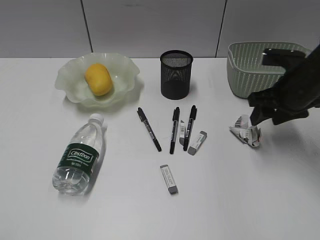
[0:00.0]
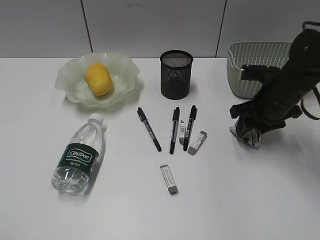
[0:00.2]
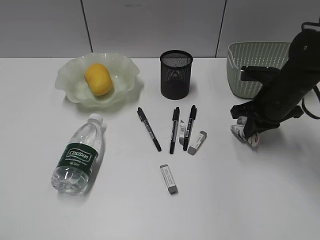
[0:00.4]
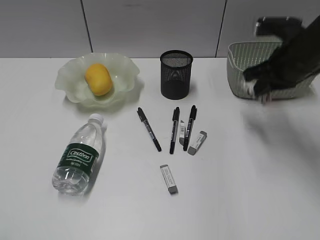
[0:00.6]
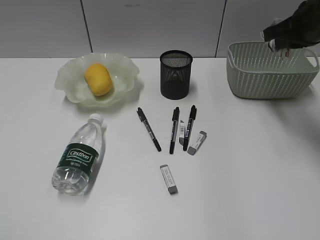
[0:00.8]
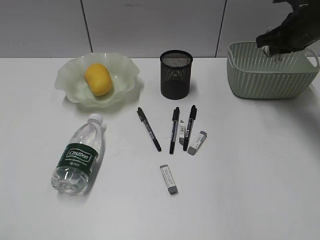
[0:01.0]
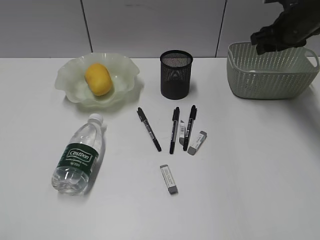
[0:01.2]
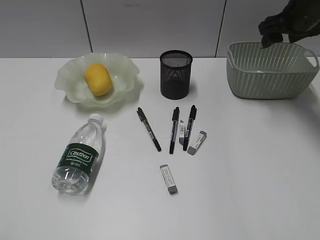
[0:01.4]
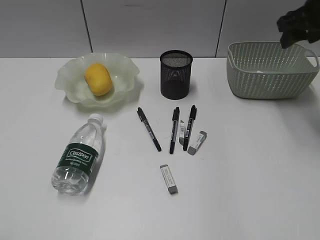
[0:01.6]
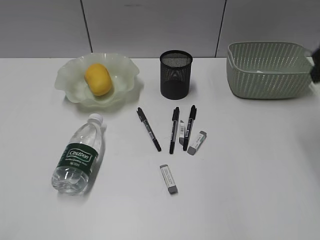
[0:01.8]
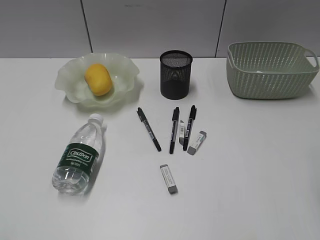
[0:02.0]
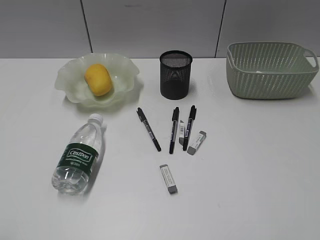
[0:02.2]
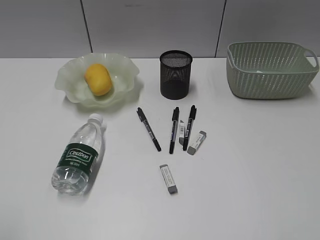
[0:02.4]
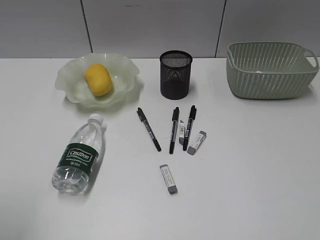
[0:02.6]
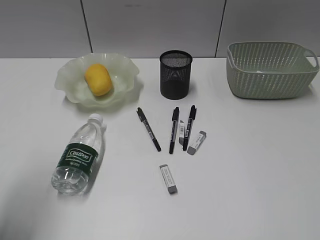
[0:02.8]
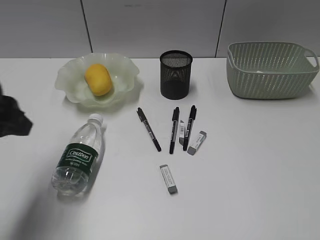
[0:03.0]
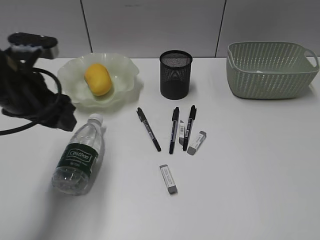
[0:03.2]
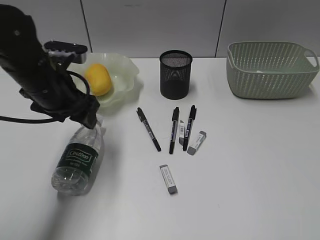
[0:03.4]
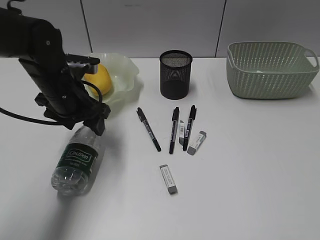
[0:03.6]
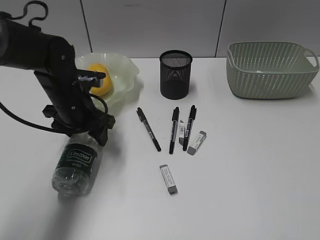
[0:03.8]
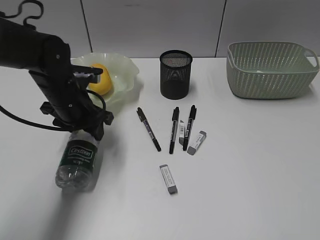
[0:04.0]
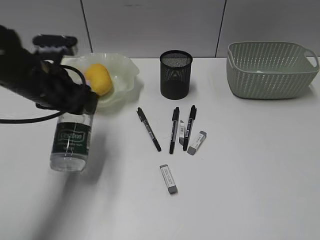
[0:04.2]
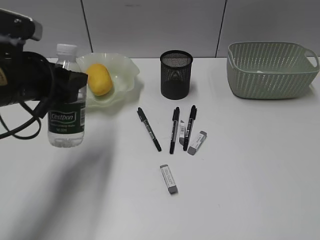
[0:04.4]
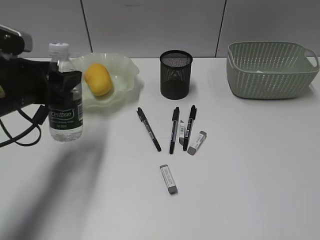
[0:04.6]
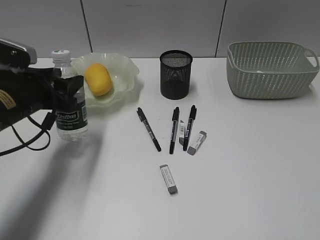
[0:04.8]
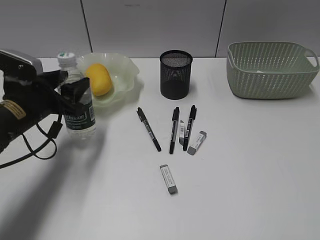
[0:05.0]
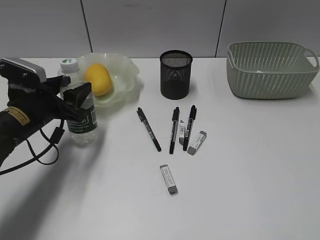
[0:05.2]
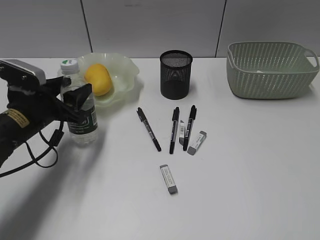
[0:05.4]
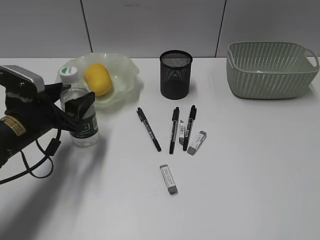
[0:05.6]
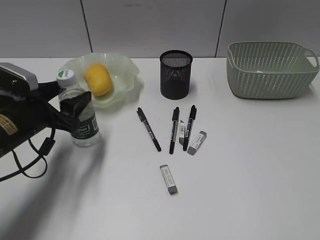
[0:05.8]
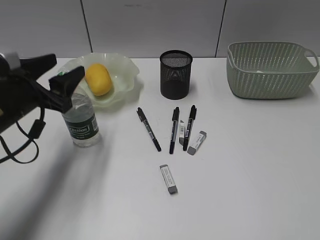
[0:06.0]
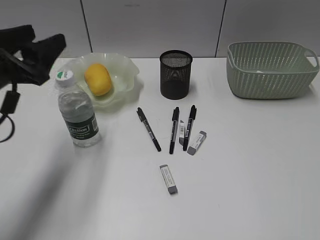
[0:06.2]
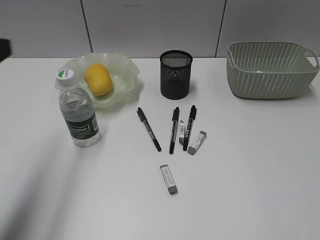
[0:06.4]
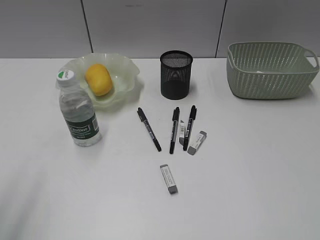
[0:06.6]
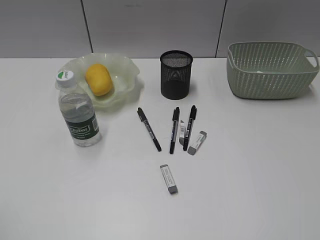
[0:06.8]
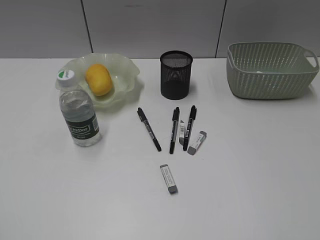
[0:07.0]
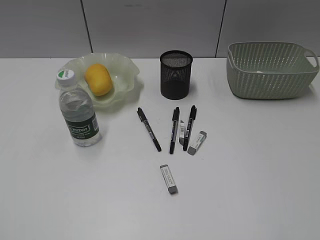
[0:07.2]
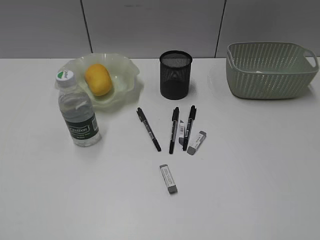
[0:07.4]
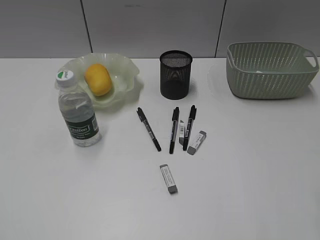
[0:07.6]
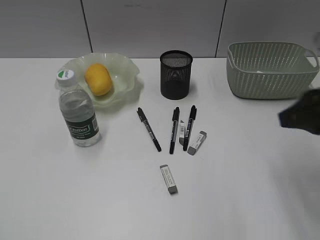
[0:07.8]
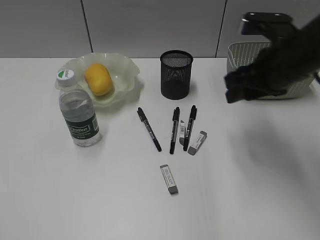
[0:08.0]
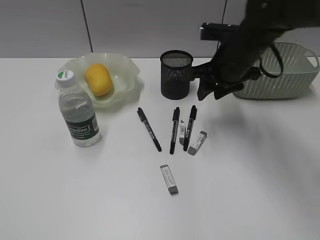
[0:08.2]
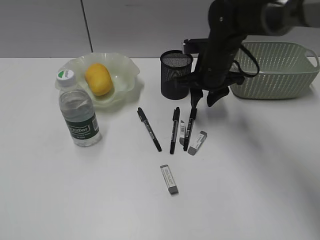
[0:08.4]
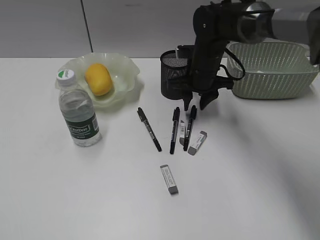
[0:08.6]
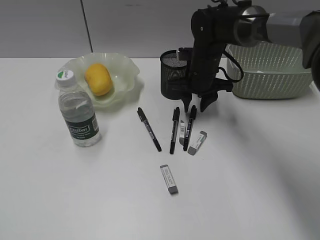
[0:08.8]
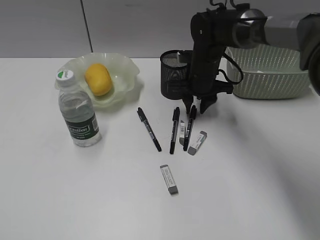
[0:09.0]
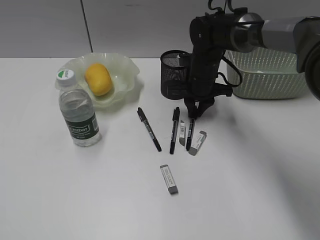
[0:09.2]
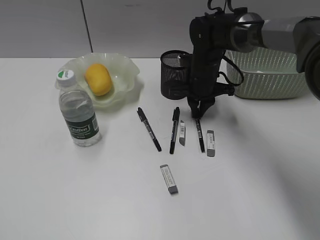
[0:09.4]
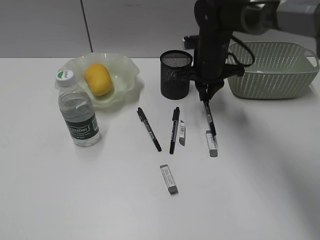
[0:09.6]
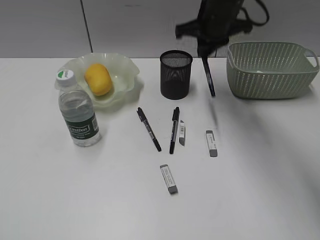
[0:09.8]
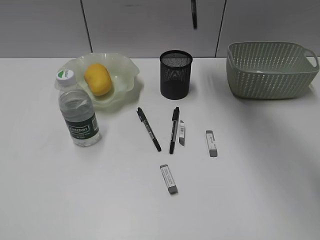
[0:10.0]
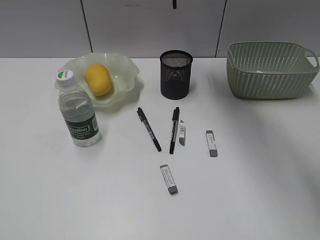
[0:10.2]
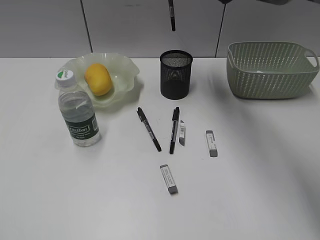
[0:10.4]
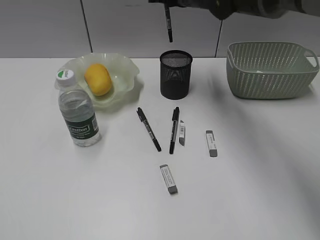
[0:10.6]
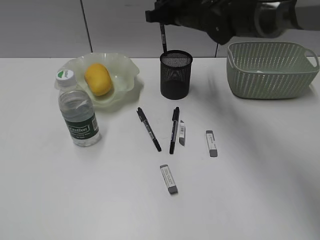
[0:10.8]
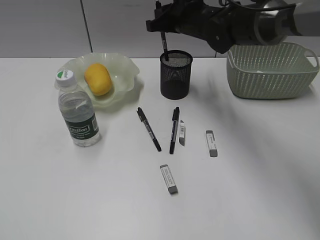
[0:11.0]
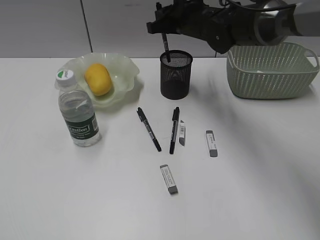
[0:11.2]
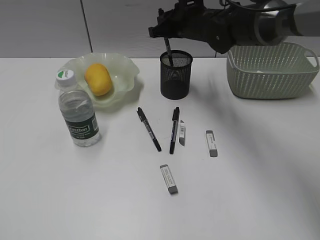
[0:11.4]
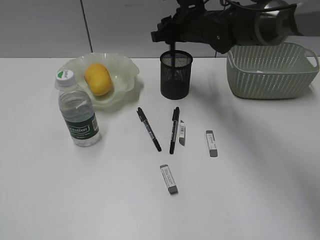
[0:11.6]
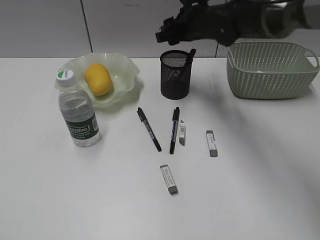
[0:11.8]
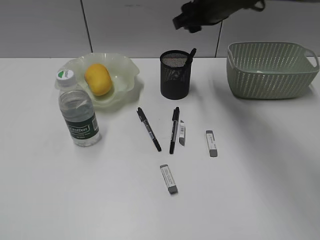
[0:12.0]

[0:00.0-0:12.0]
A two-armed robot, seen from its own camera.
Step, 0:00.6 to 0:01.2: Place the waste paper in the basket with right gripper.
Step, 0:01.4 to 0:03.8: Grasp the bottle with left gripper.
Step, 0:04.0 to 0:06.0: Stand the bottle with left gripper.
Step, 0:06.2 to 0:09.2: Grasp the black pen with right gripper.
Step, 0:09.4 to 0:11.6: Place the black pen in pen holder with right gripper.
0:00.0 to 0:01.6: The right gripper moves up and down over about 15 cm, changing direction 2 times, and closes and opens again.
0:01.6 to 0:03.0: The right gripper heads backward, covering some 40 cm; the left gripper goes roughly 25 cm forward.
0:06.0 to 0:07.6: The left gripper moves backward, to the left and upward, about 30 cm, and closes.
0:07.6 to 0:09.0: The right gripper goes roughly 40 cm forward, to the left and downward.
0:09.0 to 0:10.4: The right gripper heads upward, covering roughly 15 cm, and closes its fingers.
0:10.4 to 0:12.0: The right gripper heads backward, covering about 5 cm, moves about 10 cm downward and comes back, and opens up.

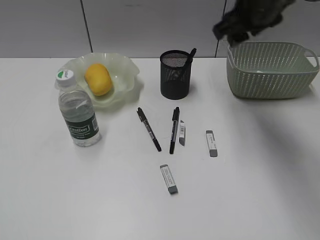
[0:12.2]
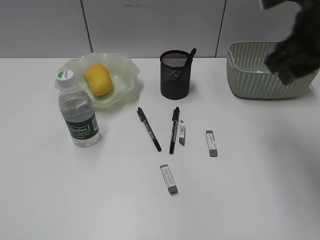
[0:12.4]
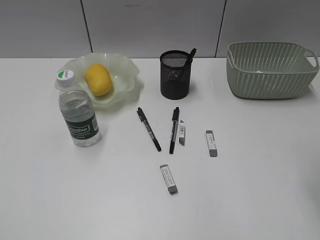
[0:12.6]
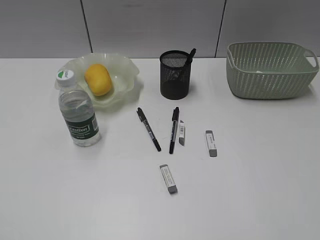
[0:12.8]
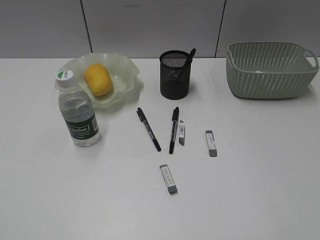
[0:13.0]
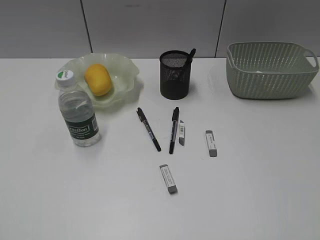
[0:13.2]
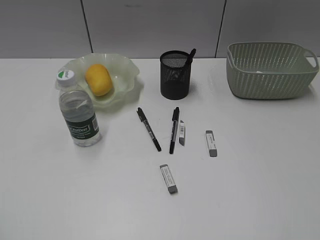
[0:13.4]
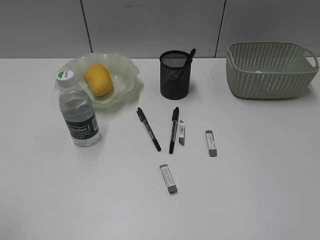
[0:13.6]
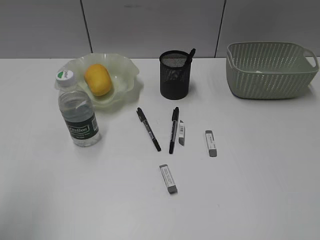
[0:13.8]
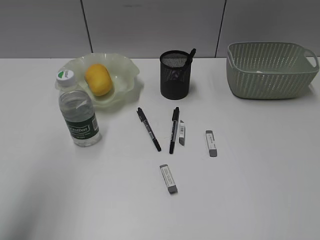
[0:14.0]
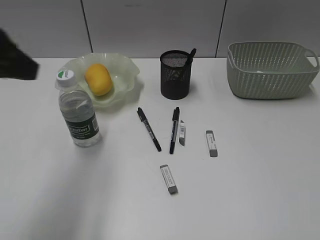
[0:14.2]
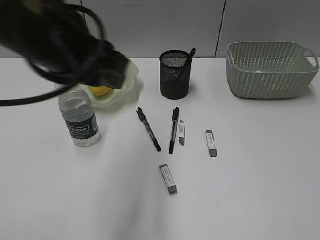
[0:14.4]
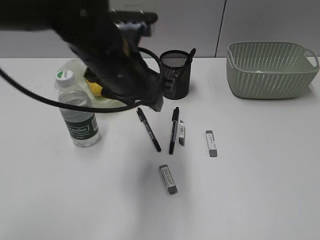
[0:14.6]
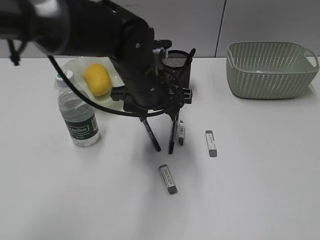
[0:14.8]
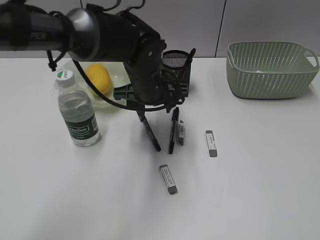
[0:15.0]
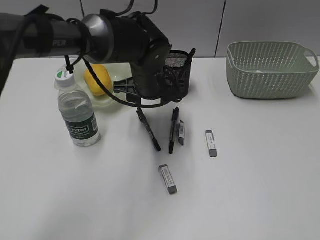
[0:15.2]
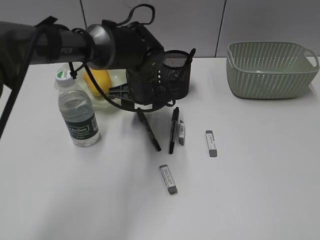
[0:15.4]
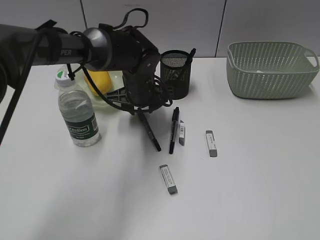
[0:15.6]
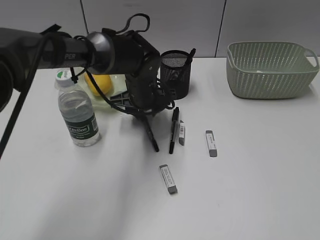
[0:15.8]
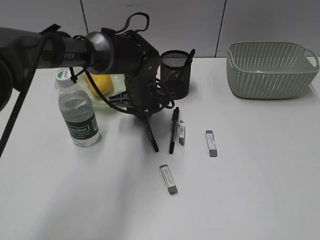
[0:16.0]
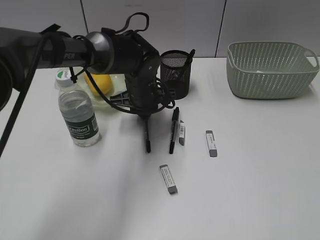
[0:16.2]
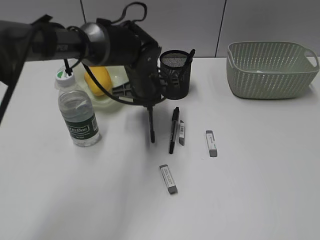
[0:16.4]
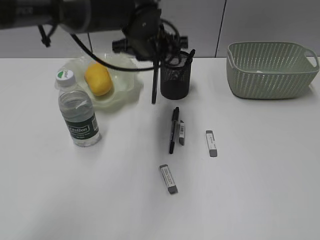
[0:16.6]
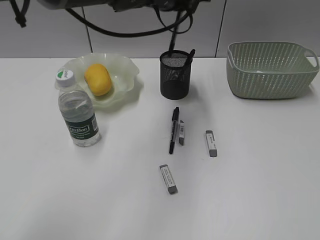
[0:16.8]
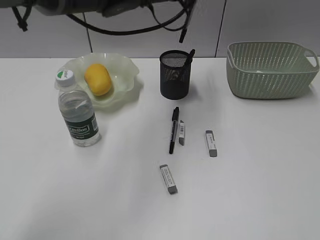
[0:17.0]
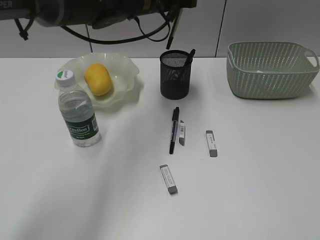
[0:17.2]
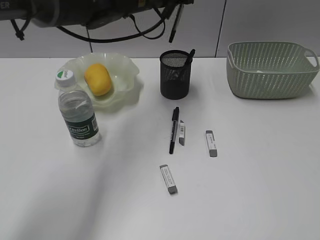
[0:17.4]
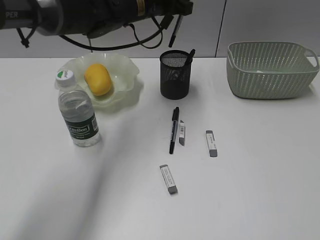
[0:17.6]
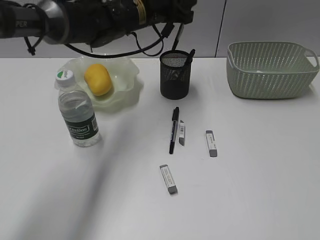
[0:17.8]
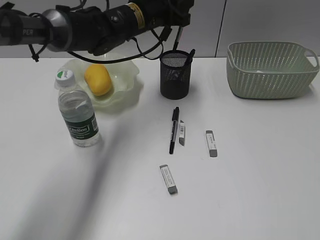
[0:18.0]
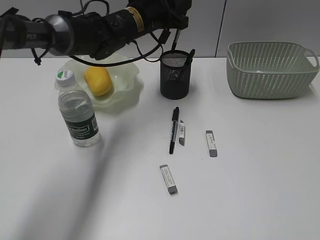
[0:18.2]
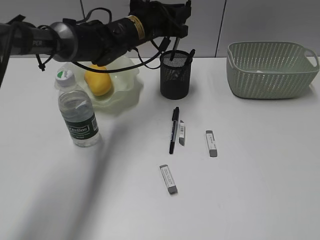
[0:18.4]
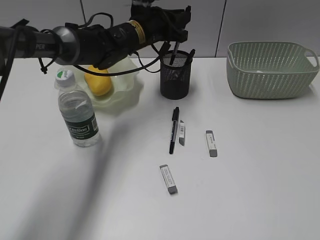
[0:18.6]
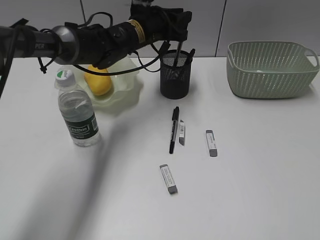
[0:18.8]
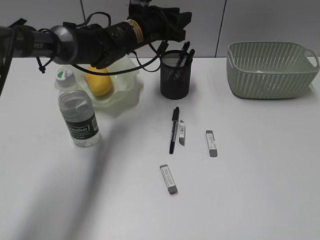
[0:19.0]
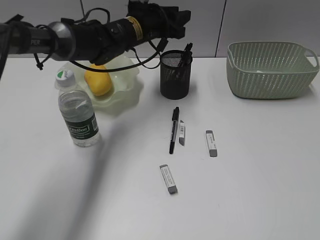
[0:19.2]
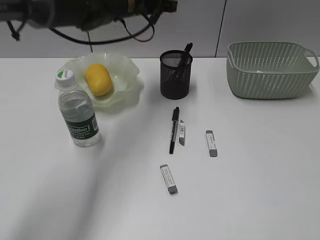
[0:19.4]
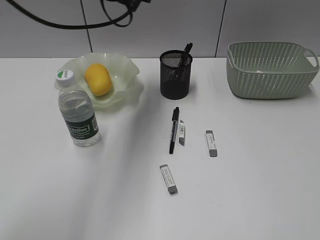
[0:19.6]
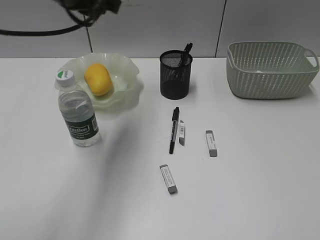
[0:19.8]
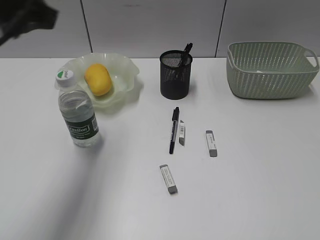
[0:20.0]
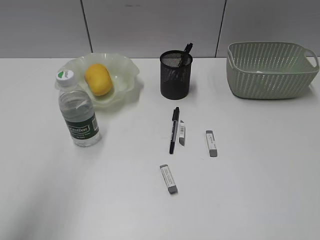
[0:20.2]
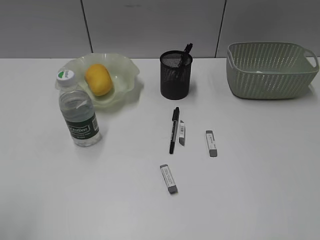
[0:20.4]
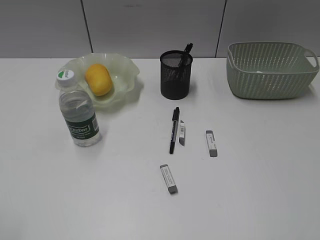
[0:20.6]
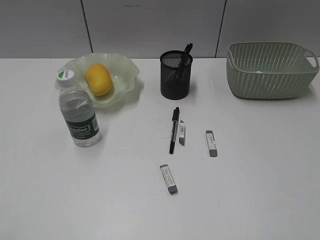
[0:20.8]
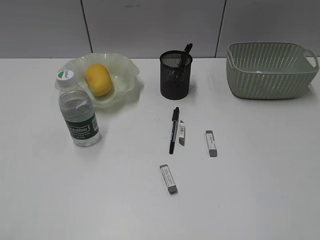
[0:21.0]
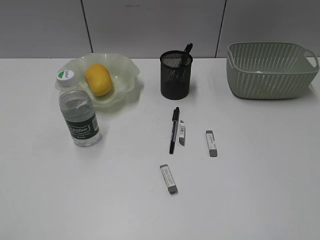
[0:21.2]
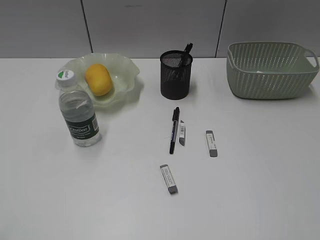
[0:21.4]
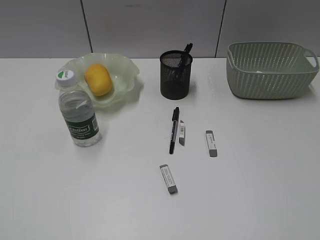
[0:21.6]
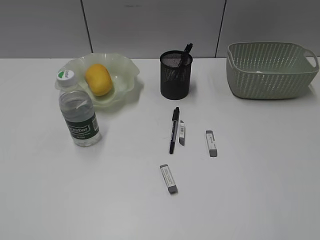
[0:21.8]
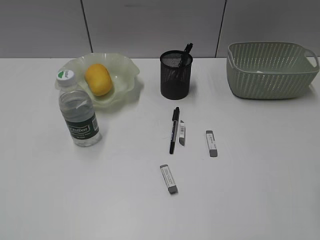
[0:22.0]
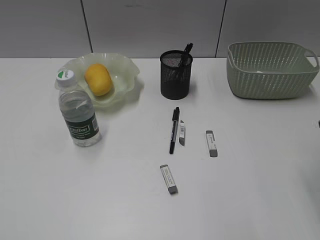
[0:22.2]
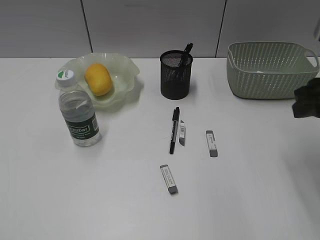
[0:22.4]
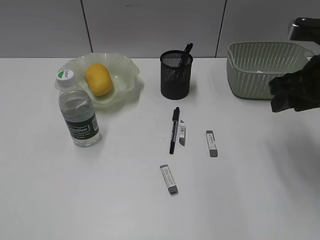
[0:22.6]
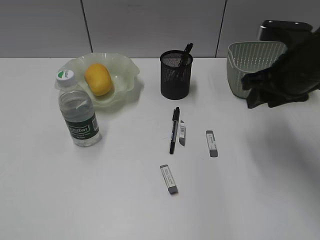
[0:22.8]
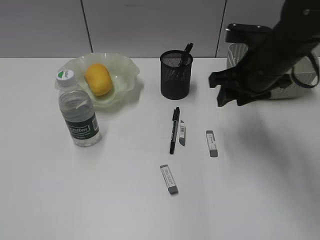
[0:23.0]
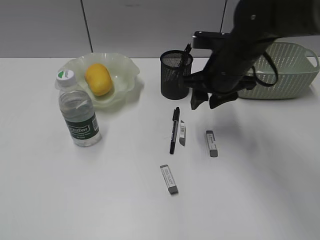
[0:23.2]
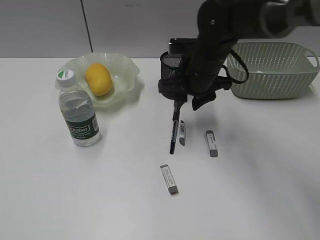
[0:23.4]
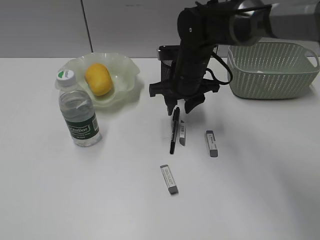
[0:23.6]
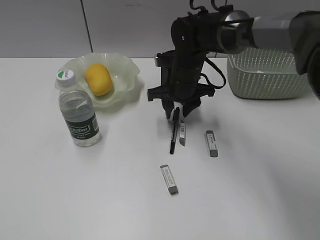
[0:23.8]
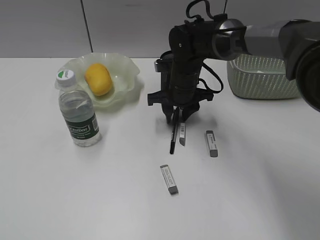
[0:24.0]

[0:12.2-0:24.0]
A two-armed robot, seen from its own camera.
Step, 0:12.2 to 0:16.2: Grasp the black pen with left gripper.
Step, 0:16.4 to 0:19.0: Place the black pen in pen holder with left gripper.
0:12.2 to 0:13.6: The right gripper is displaced backward and to the right by roughly 40 cm.
0:13.6 to 0:15.2: The left gripper moves forward, to the right and downward, approximately 50 cm.
0:15.2 to 0:16.6: The left gripper is displaced upward by approximately 10 cm, and closes up.
0:16.6 to 0:18.2: The left gripper shifts some 5 cm forward, and reaches about 5 cm upward, then returns.
0:18.2 to 0:19.6: The left gripper goes roughly 15 cm upward, to the left and backward.
0:19.6 to 0:21.0: The left gripper goes some 50 cm backward and to the left.
0:21.0 to 0:22.6: The right gripper shifts about 30 cm forward.
0:22.6 to 0:24.0: The right gripper moves to the left, forward and downward, roughly 25 cm.
